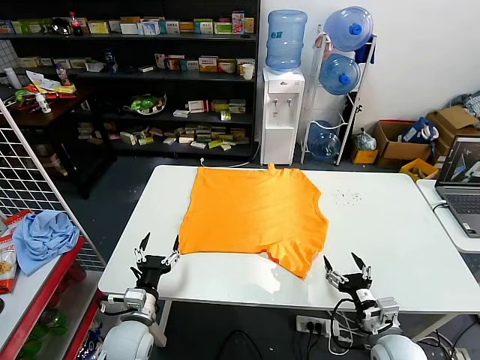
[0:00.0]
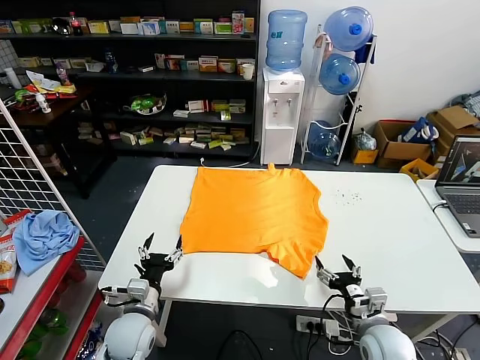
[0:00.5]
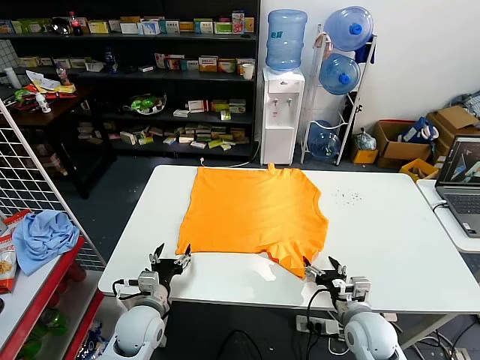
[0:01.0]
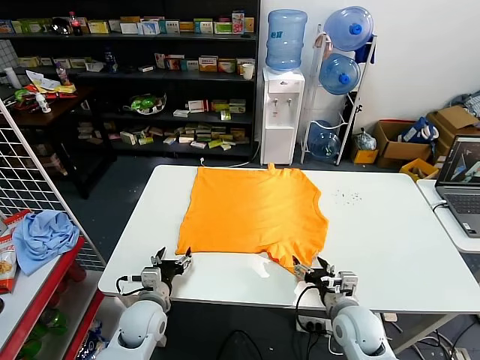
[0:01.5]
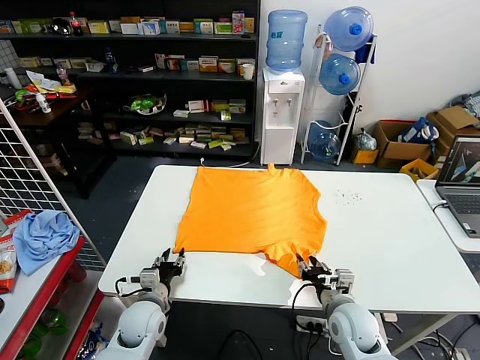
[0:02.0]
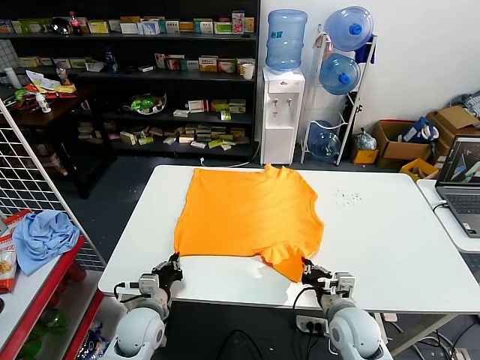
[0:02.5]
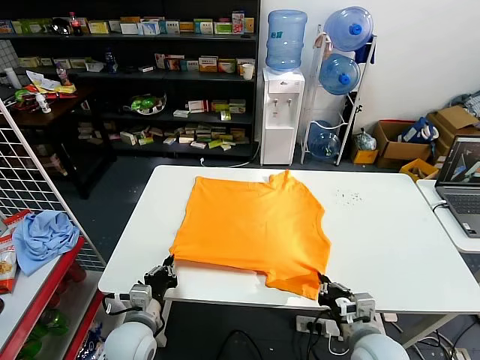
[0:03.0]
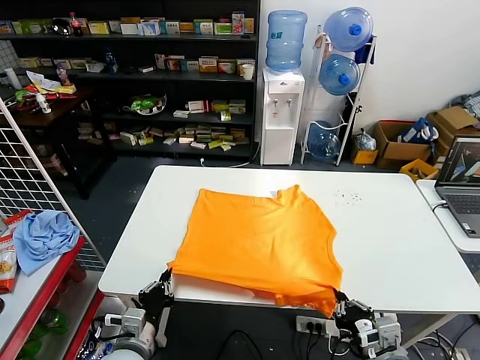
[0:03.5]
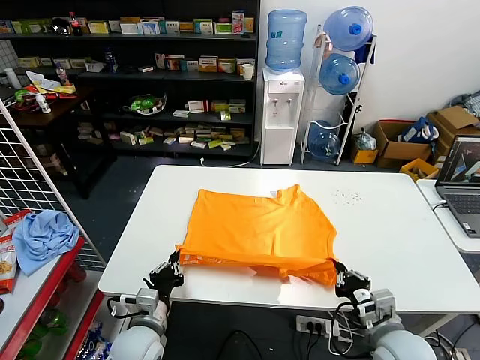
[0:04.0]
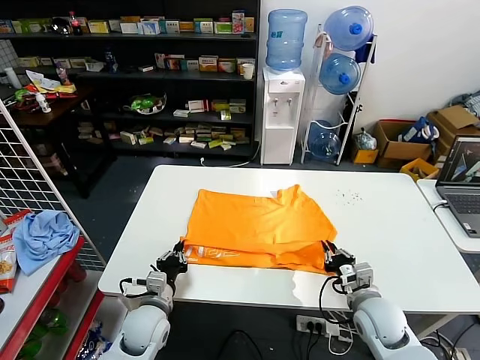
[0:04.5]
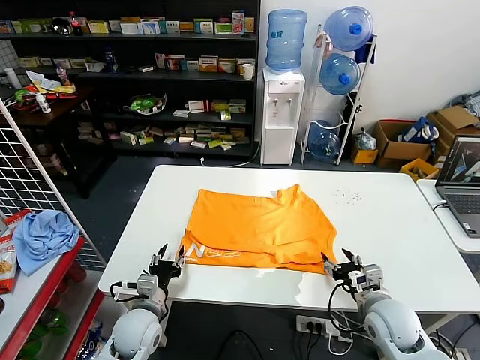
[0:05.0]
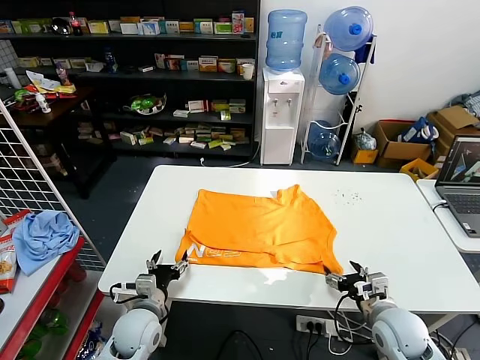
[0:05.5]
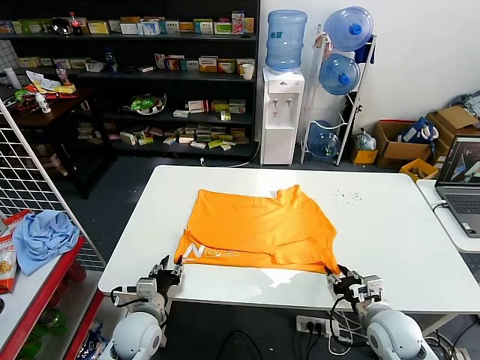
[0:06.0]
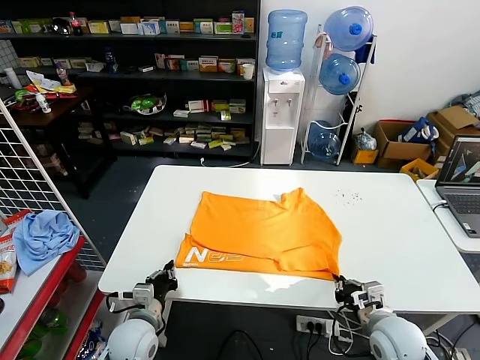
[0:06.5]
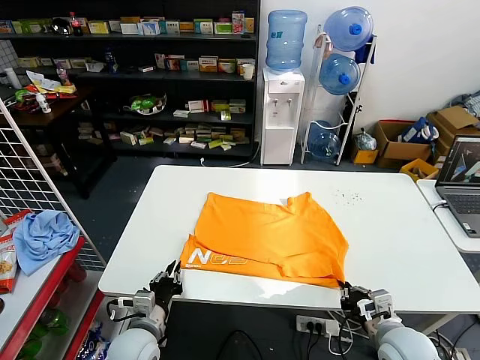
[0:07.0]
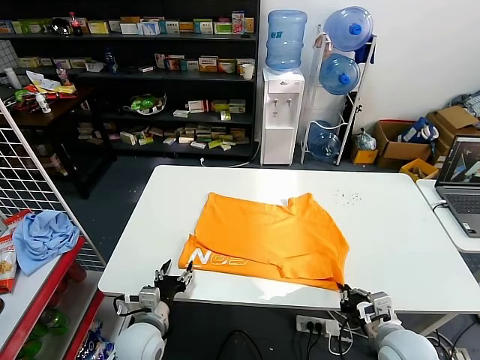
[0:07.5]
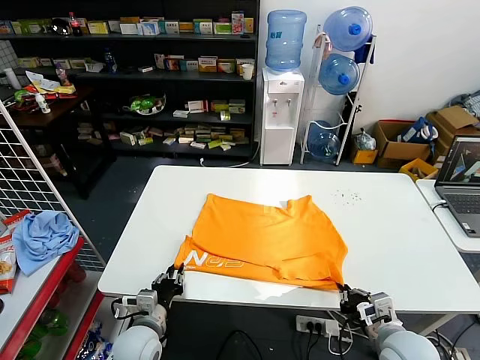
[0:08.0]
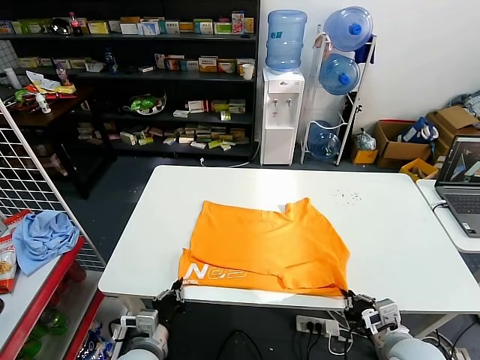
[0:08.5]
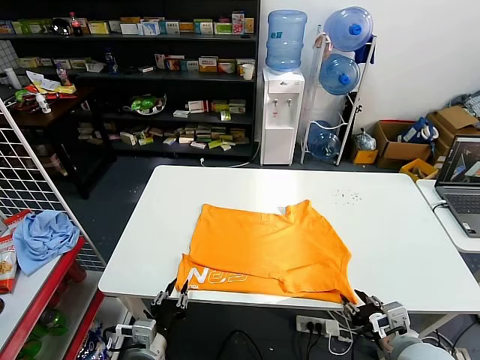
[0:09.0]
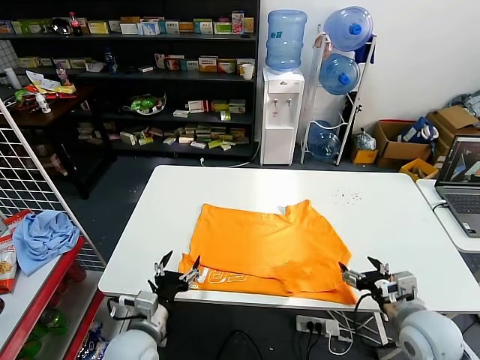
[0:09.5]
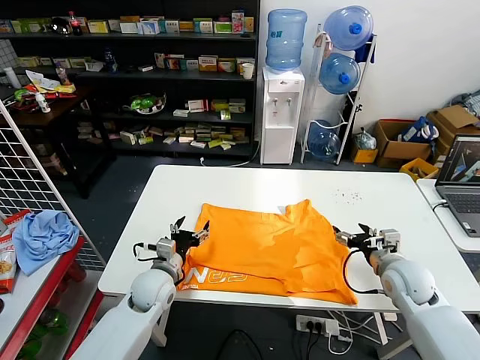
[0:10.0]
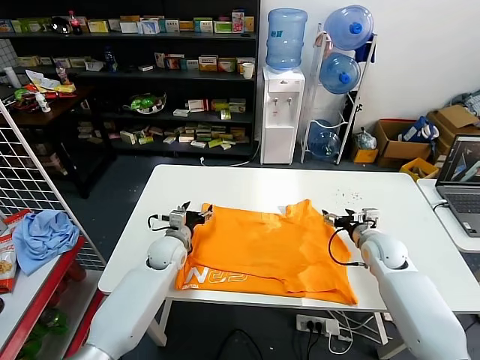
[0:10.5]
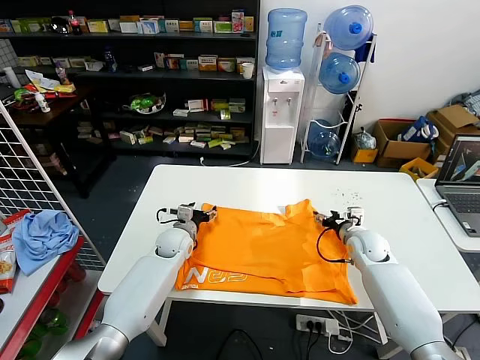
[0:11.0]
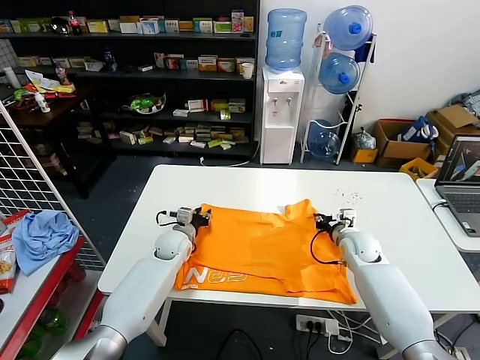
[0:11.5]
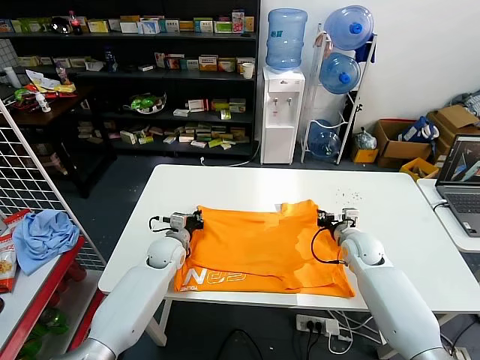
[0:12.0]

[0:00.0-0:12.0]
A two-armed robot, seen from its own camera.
Task of the whole recording: fold and organize the clothes.
Step, 0:00.0 to 0:02.5: use both grippers simultaneously to clamp the lower edge of the clothing fabric.
Step, 0:03.0 to 0:04.5: use both grippers to drag the lower edge of the fabric forward and fold it over the upper edge.
Step, 0:05.5 to 0:09.0: Drag the clothes downward with both gripper.
Step, 0:09.5 to 0:11.5: use both grippers simultaneously to clamp the upper edge of the clothing fabric.
0:02.0 to 0:04.0: The left gripper goes roughly 5 cm backward, and closes, while the right gripper is displaced to the right, backward and upward by about 10 cm.
0:04.0 to 0:06.0: The left gripper moves some 5 cm, and opens its fingers. The right gripper ends up about 5 cm from where it was, and opens.
0:06.0 to 0:08.0: The right gripper goes approximately 5 cm backward, and closes its fingers.
0:08.0 to 0:10.0: Both grippers travel together forward, some 15 cm. The right gripper opens. Meanwhile the left gripper opens up.
0:10.0 to 0:12.0: Both grippers move forward, approximately 10 cm. The right gripper closes. The left gripper closes up.

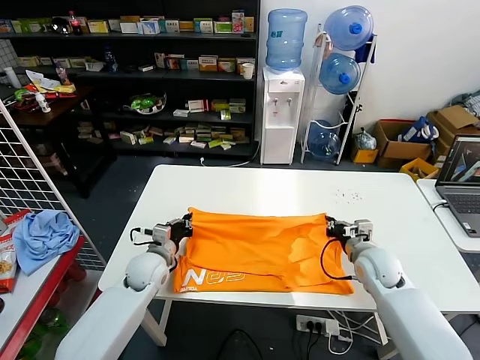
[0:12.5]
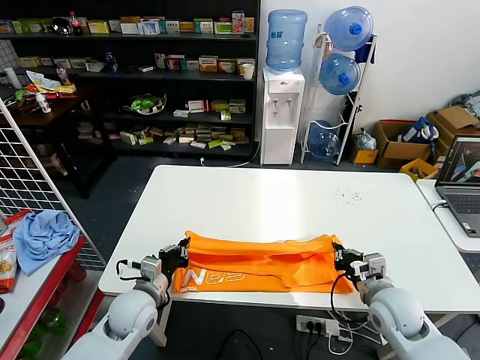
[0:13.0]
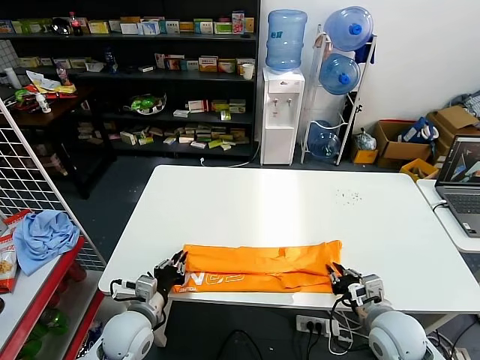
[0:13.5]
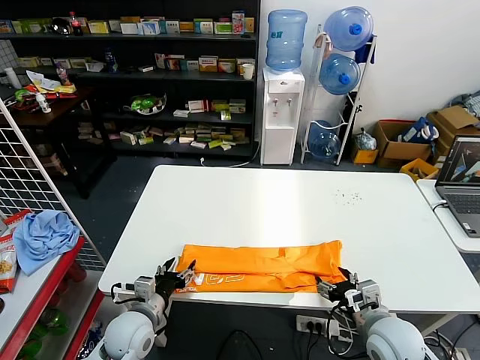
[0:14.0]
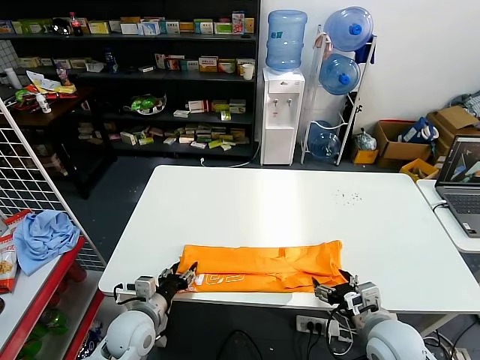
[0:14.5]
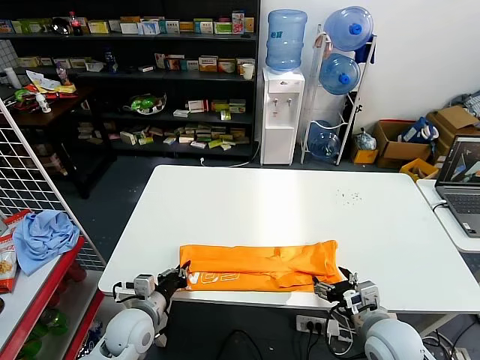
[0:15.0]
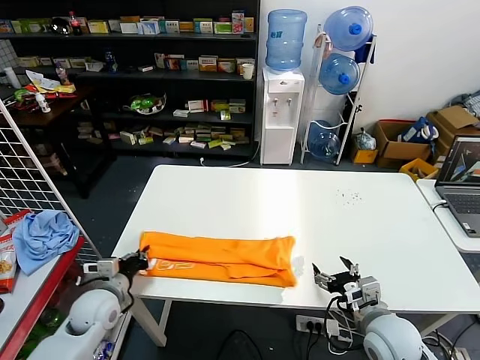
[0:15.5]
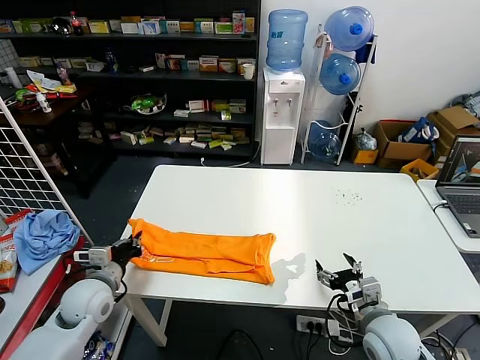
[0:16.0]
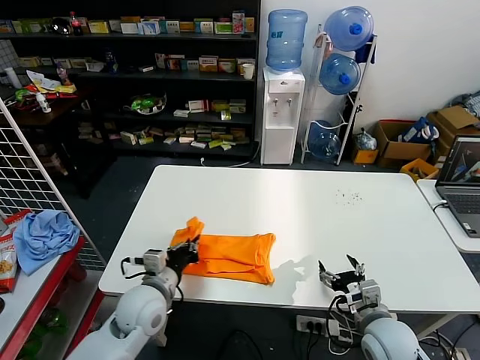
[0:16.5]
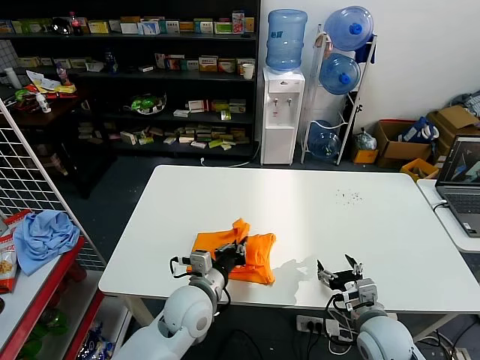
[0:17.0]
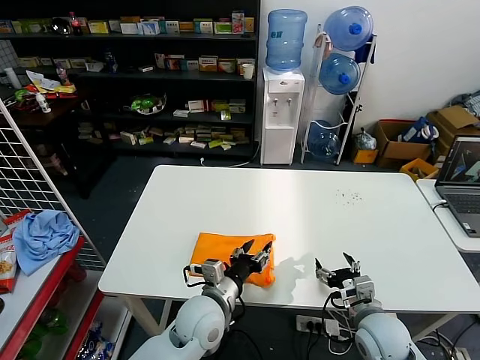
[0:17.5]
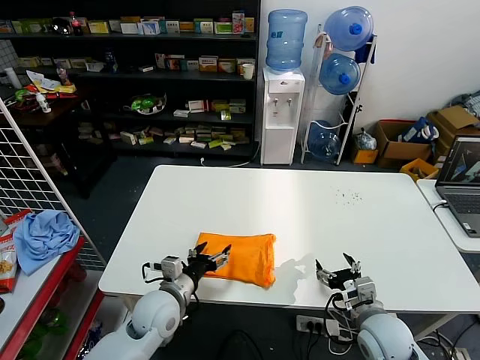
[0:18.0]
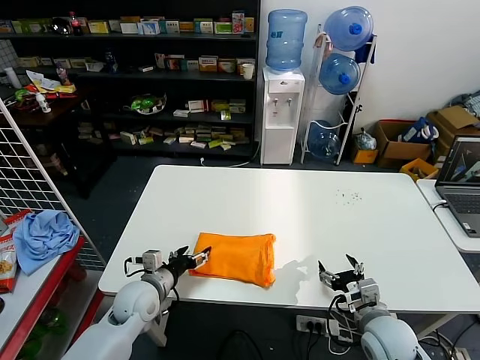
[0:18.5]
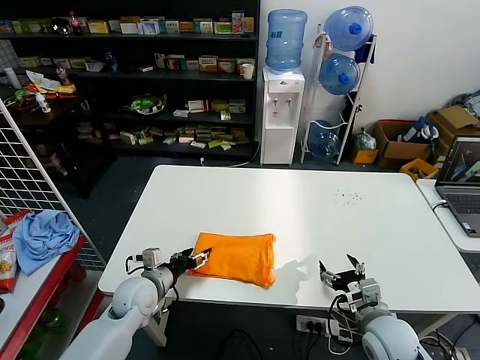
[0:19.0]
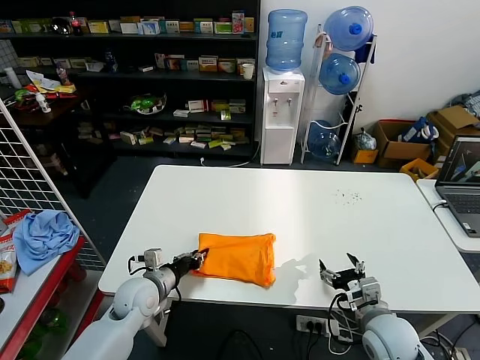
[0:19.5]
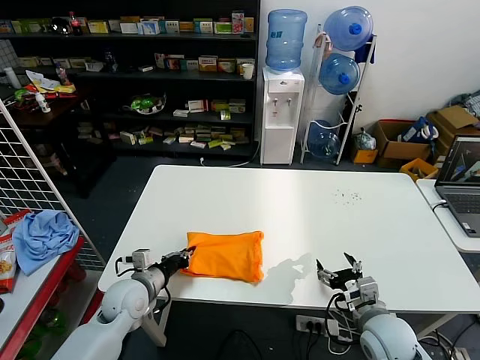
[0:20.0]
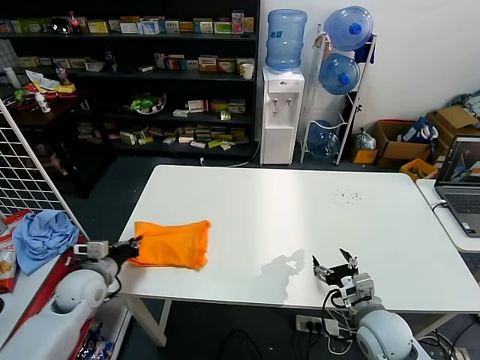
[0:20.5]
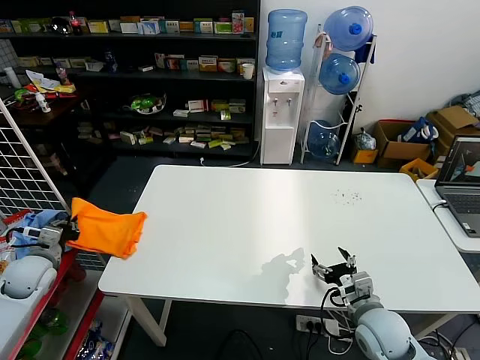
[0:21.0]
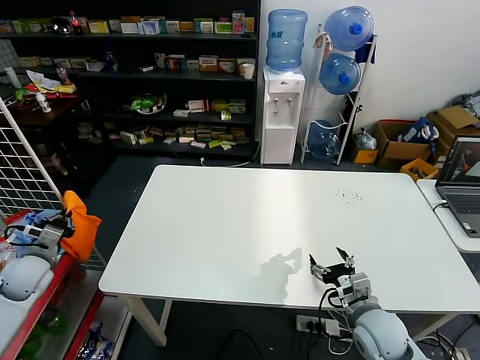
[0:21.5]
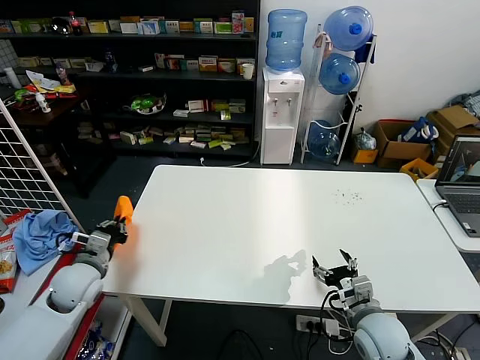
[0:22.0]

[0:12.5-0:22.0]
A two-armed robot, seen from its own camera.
Task of the whole recording: fold and organize the clothes.
Step, 0:12.5 to 0:14.0: use both grippers to drag the upper edge of the fabric backward and fold it over the lower edge.
Step, 0:14.5 to 0:15.0: use the left gripper to clamp the left edge of the fabric.
Step, 0:15.5 to 0:18.0: use the left gripper to drag the left edge of the fabric to the left and folds it over the right edge.
0:12.5 to 0:14.5: The grippers both shift backward by about 15 cm. The right gripper opens up. Meanwhile the left gripper opens.
0:14.5 to 0:16.5: The left gripper heads upward, covering approximately 10 cm, moves approximately 10 cm to the left and comes back, and closes.
0:16.5 to 0:18.0: The left gripper reaches about 15 cm to the right, then returns, and opens up.
0:18.0 to 0:20.0: The left gripper shifts about 10 cm to the left, and closes.
0:20.0 to 0:22.0: The left gripper moves to the left and upward, some 15 cm.

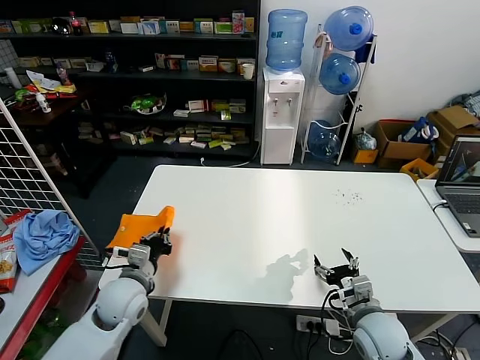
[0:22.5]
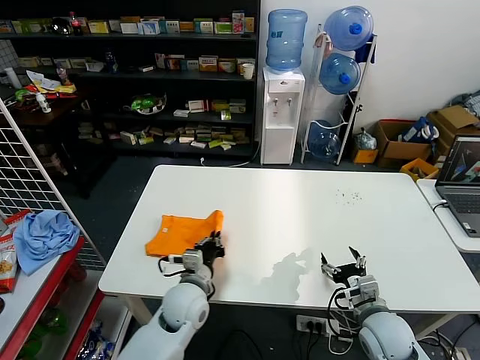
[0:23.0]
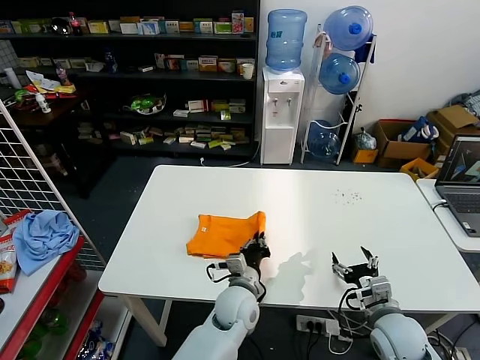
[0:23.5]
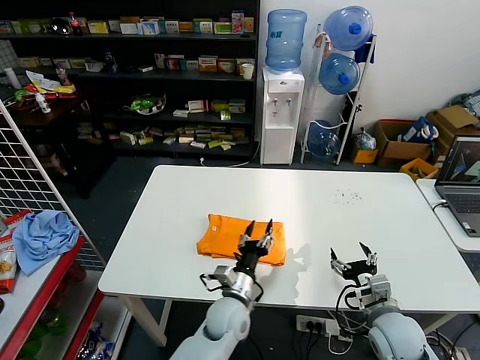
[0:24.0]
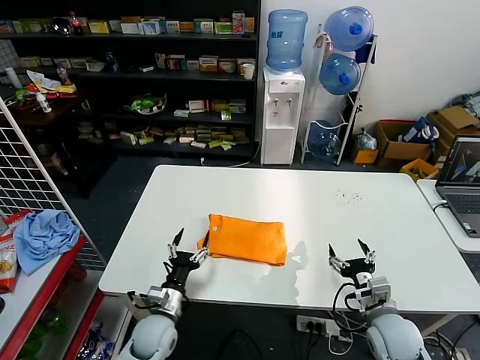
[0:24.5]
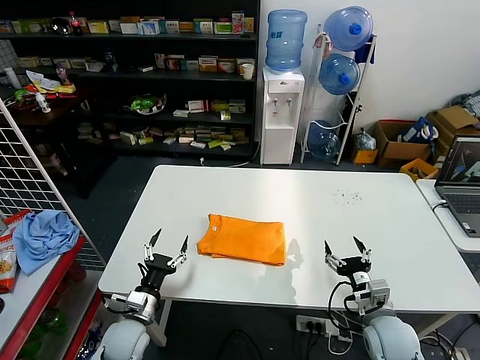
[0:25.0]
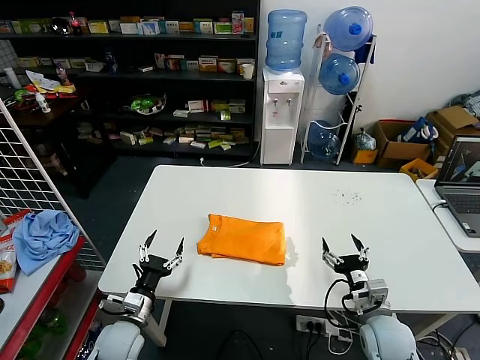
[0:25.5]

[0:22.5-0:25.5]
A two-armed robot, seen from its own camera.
Task of the whole recording: fold and organize the clothes.
0:22.5 to 0:24.0: The left gripper shifts approximately 25 cm to the right, and opens.
0:24.0 to 0:25.5: The left gripper is displaced to the left by about 25 cm.
